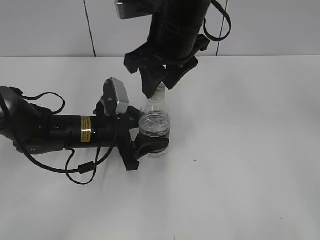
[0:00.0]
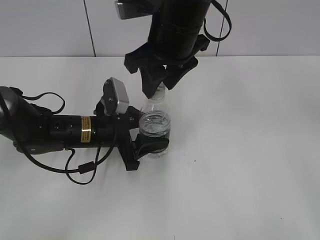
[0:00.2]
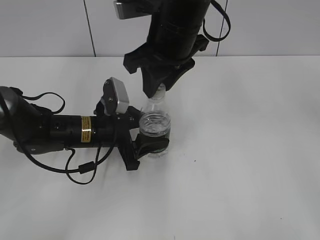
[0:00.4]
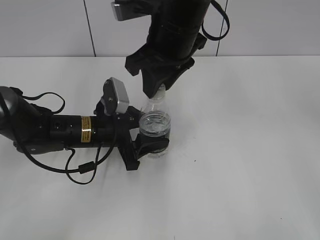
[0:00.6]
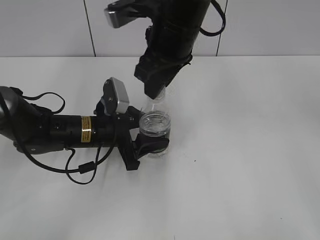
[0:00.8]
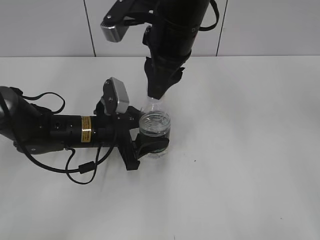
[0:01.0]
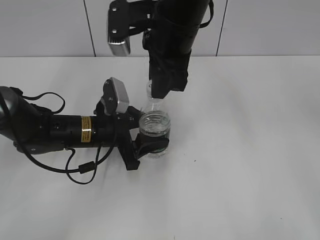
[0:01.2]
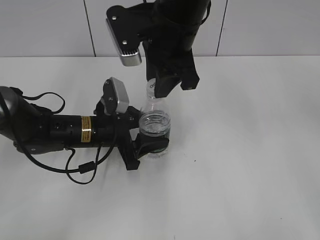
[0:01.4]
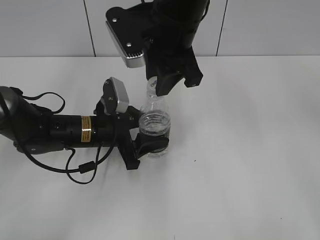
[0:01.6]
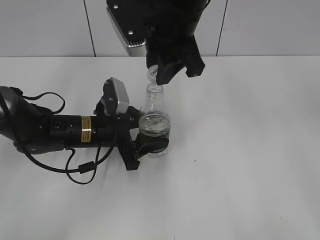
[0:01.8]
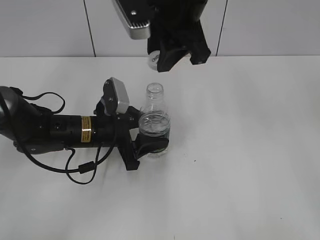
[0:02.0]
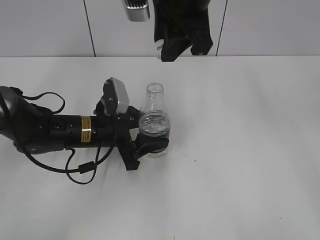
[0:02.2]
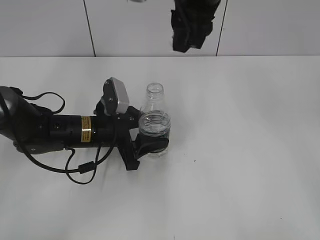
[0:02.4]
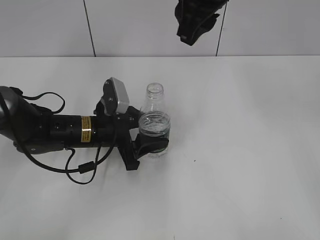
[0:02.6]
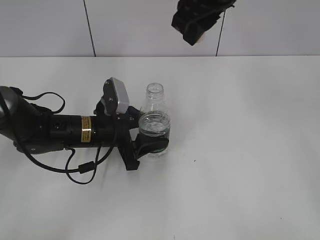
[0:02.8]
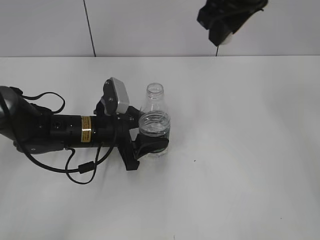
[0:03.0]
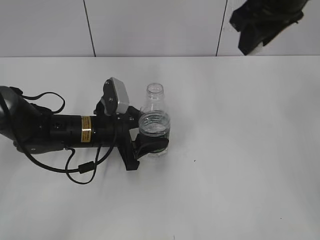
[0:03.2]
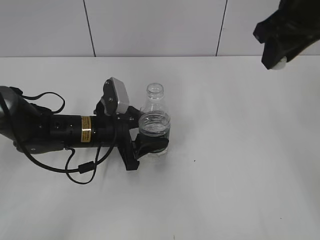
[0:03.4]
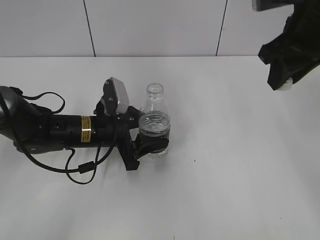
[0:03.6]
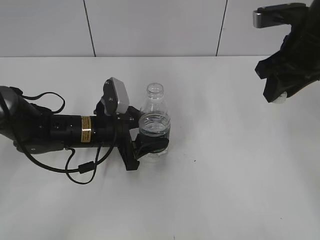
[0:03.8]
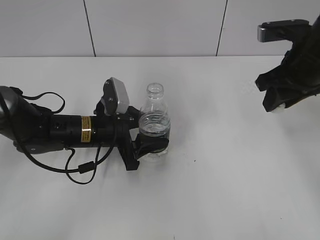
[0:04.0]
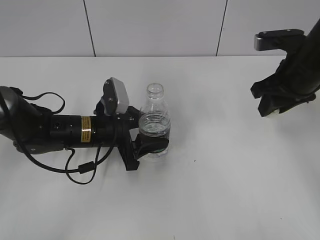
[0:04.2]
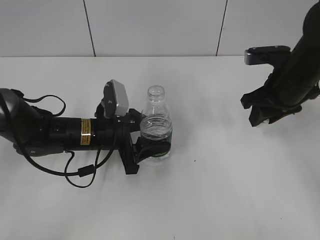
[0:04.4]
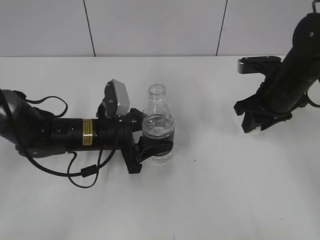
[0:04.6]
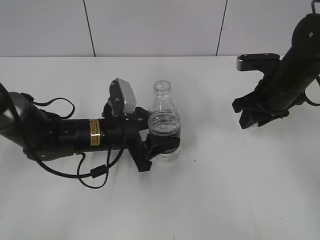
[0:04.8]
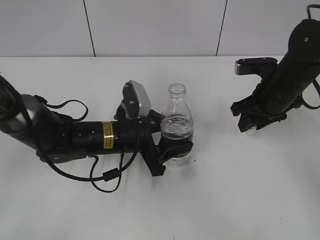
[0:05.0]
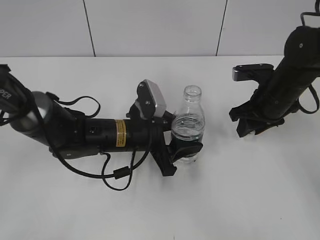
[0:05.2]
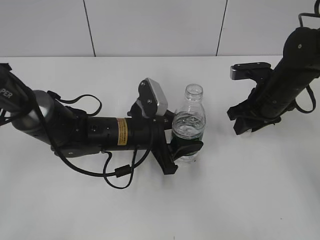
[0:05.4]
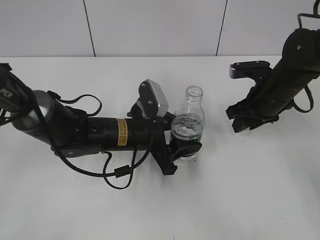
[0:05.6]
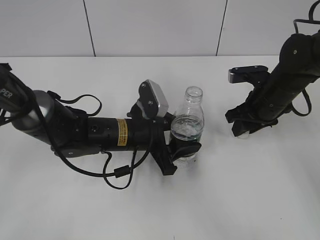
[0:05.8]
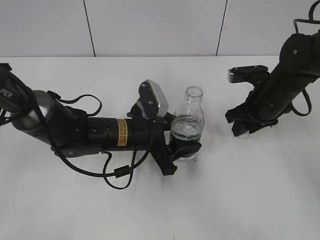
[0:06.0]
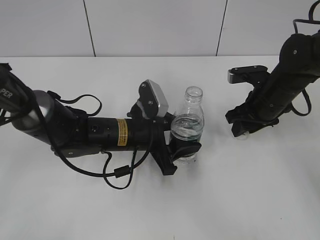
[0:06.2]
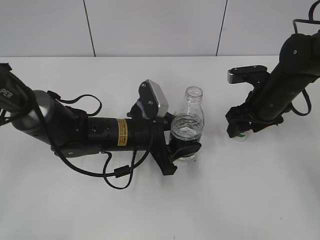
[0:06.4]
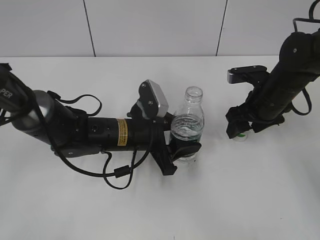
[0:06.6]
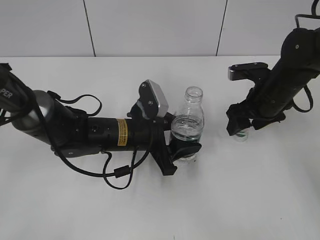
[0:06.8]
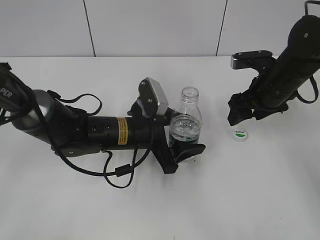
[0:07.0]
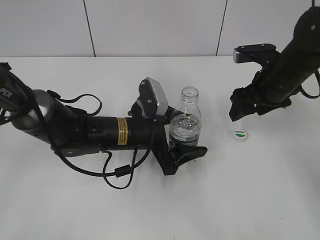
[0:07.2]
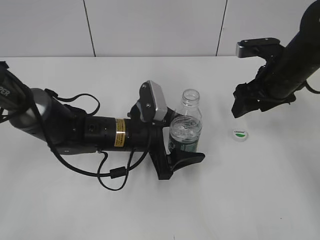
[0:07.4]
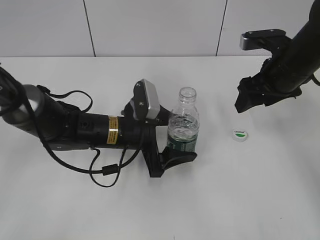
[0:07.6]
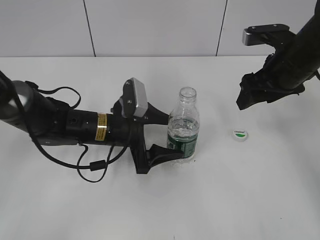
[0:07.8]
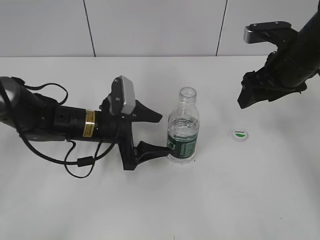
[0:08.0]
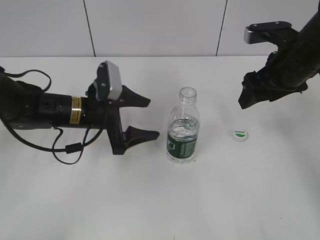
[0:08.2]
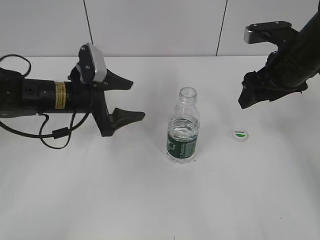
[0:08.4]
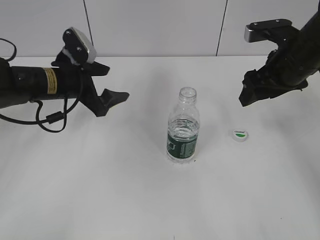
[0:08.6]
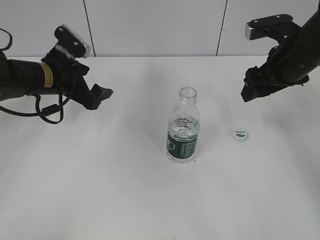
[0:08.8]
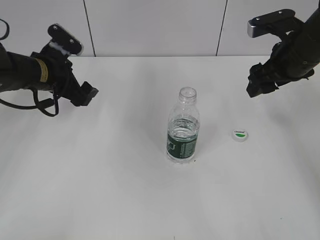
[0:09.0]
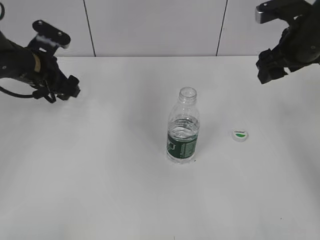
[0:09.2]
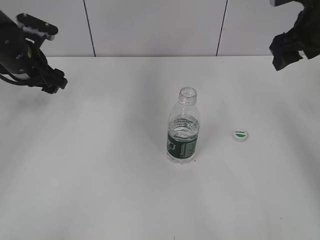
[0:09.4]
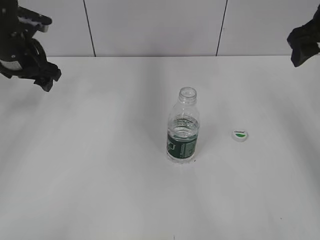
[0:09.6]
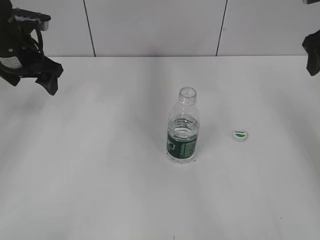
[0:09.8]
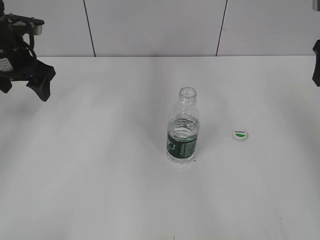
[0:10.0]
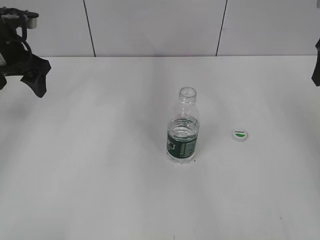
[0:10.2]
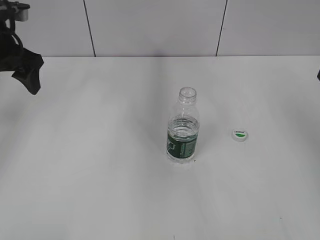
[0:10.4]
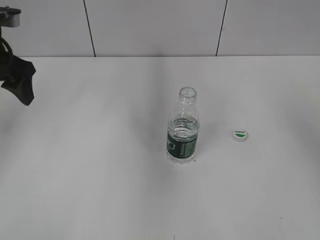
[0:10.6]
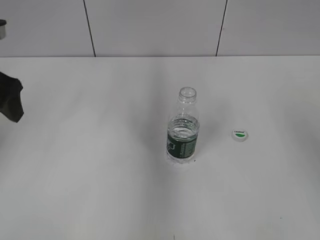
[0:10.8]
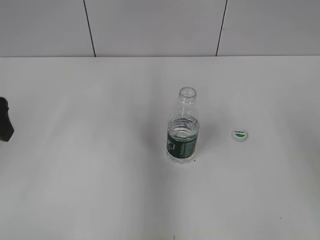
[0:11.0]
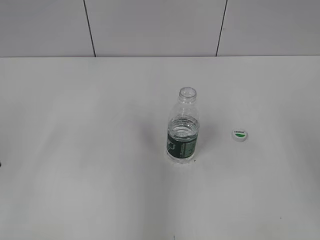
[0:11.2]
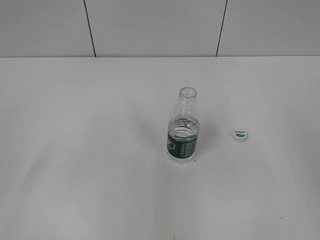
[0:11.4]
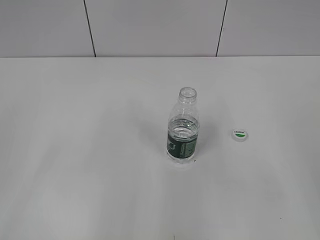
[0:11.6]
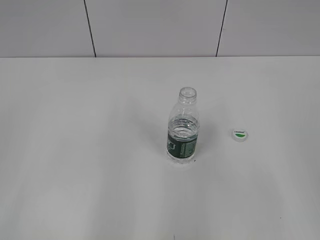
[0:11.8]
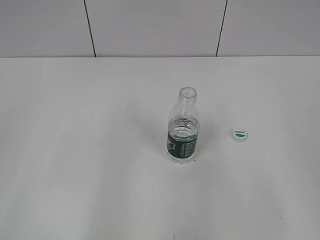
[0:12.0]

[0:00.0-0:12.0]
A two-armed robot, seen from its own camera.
Step, 0:02.0 to 0:06.6: Place the bottle cap on the table with the right gripper.
Step, 0:06.8 to 0:08.0: Place the bottle on the table with the left gripper.
0:01.6 to 0:03.0: The right gripper moves to the right and upward, some 10 cm.
0:03.0 to 0:04.4: The right gripper heads downward and to the right, covering approximately 20 cm.
0:04.4 to 0:06.0: The left gripper moves to the right, roughly 5 cm. The right gripper shifts approximately 5 cm downward.
0:06.0 to 0:07.6: The left gripper opens; the right gripper shifts approximately 10 cm upward, and opens up.
0:07.6 to 0:09.0: The left gripper moves to the left, forward and upward, about 20 cm.
0:09.0 to 0:10.4: The right gripper travels to the right and upward by some 10 cm. The left gripper travels upward and to the left by roughly 10 cm.
0:10.4 to 0:12.0: The two grippers go approximately 25 cm backward.
